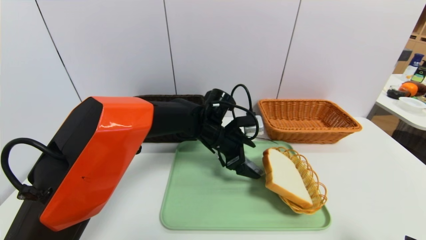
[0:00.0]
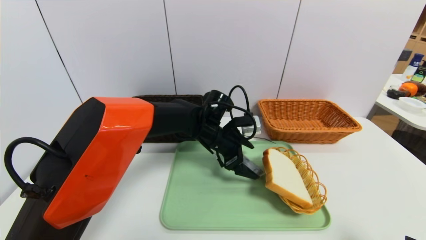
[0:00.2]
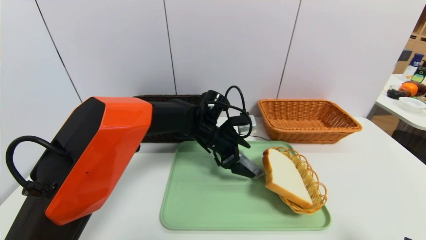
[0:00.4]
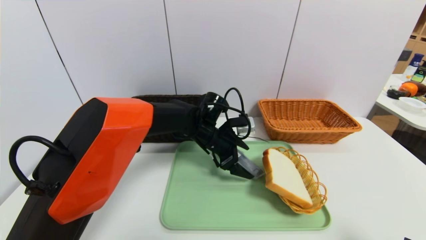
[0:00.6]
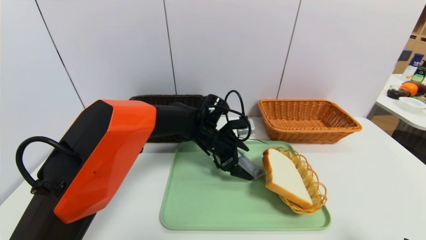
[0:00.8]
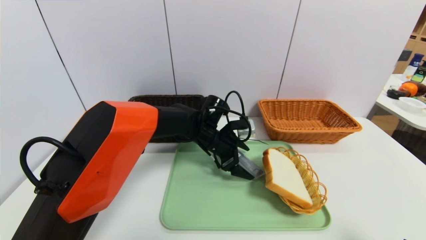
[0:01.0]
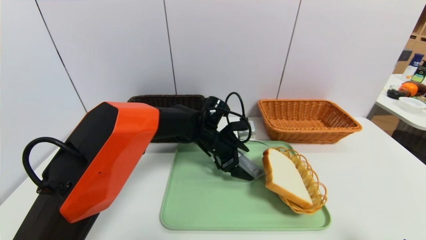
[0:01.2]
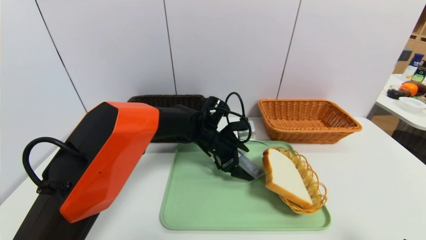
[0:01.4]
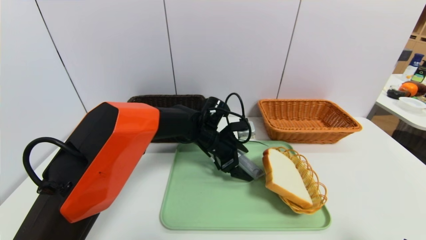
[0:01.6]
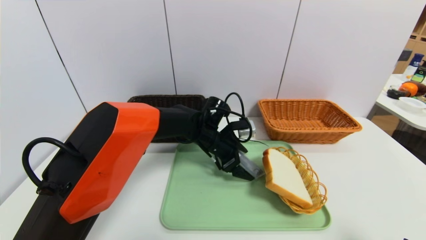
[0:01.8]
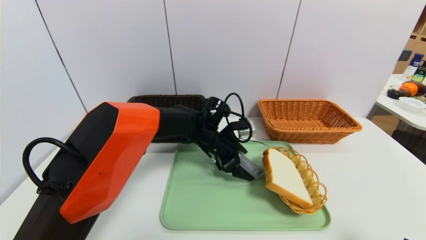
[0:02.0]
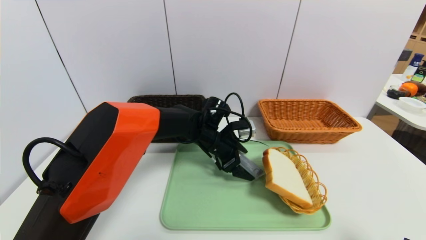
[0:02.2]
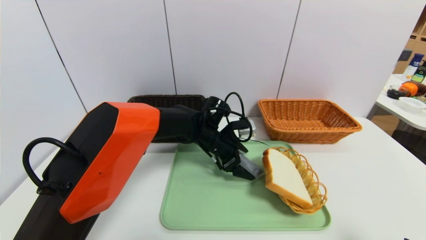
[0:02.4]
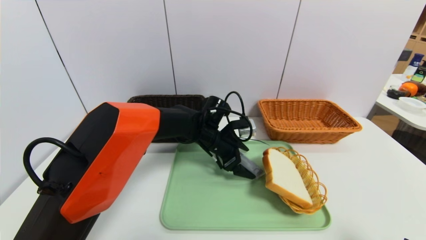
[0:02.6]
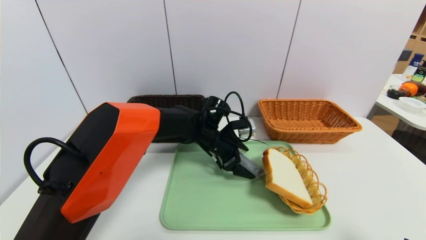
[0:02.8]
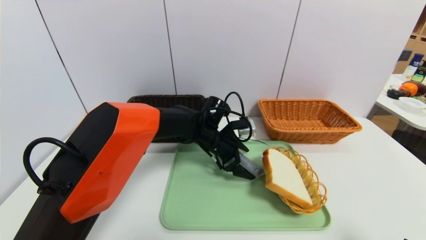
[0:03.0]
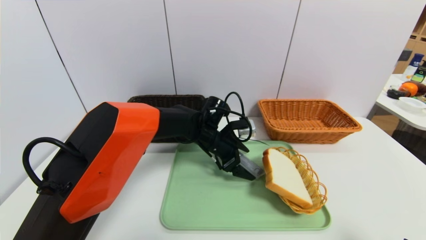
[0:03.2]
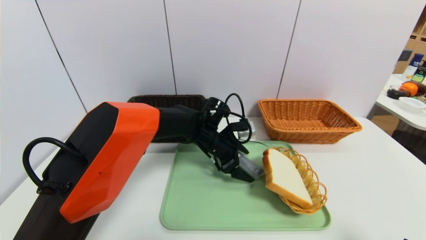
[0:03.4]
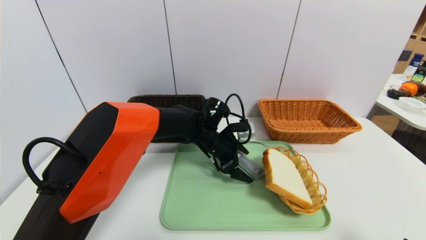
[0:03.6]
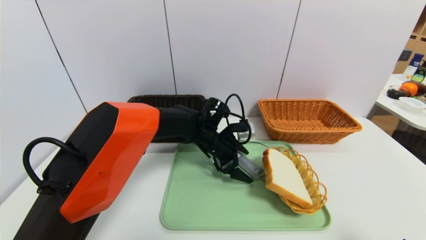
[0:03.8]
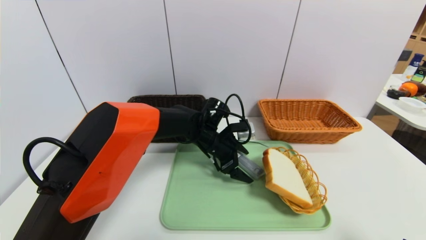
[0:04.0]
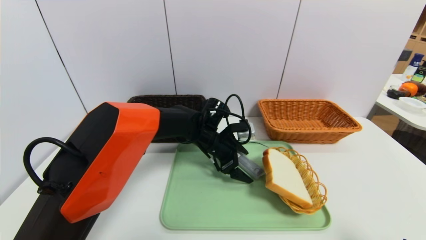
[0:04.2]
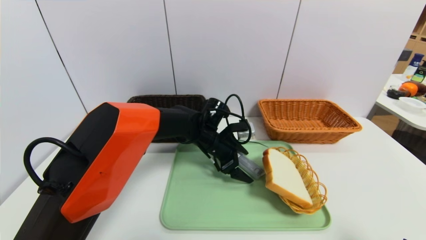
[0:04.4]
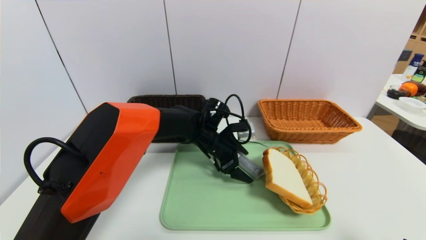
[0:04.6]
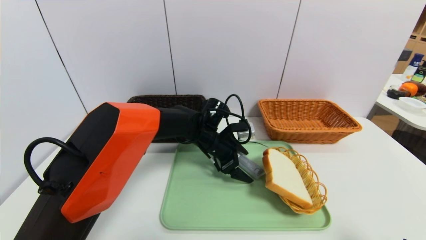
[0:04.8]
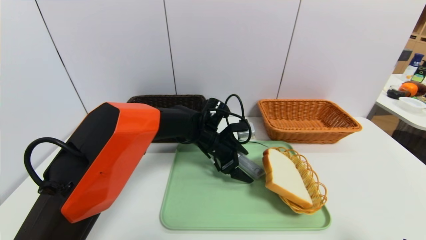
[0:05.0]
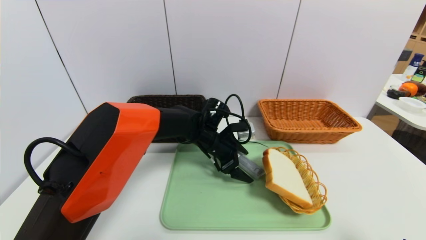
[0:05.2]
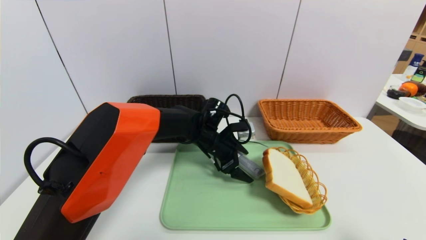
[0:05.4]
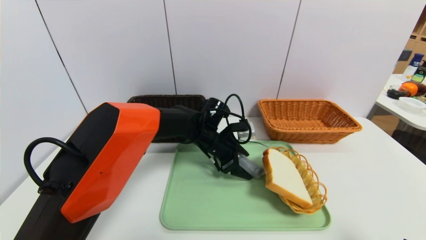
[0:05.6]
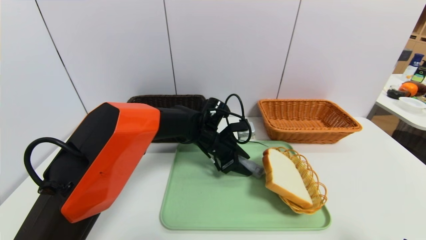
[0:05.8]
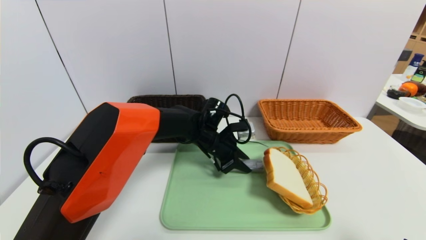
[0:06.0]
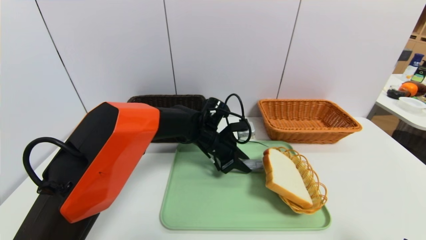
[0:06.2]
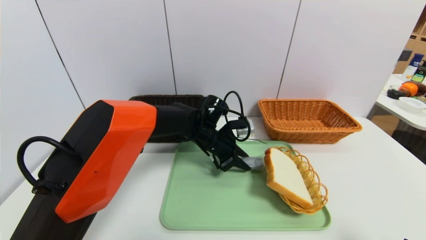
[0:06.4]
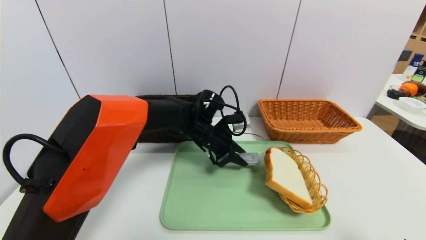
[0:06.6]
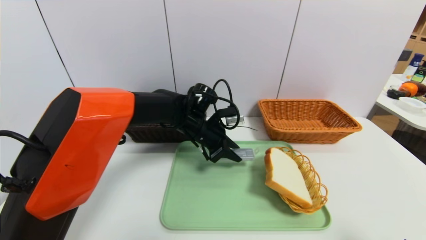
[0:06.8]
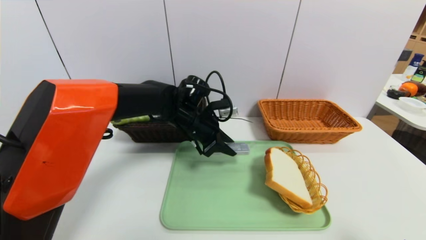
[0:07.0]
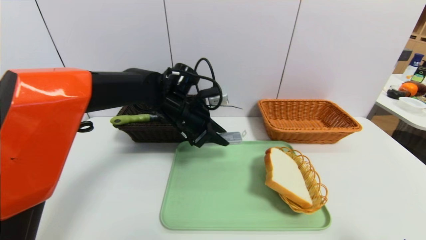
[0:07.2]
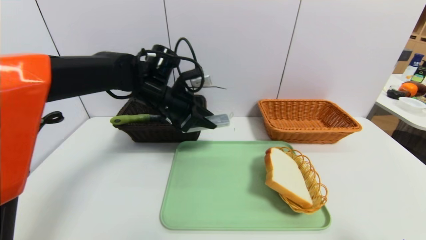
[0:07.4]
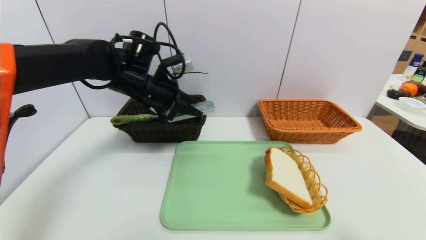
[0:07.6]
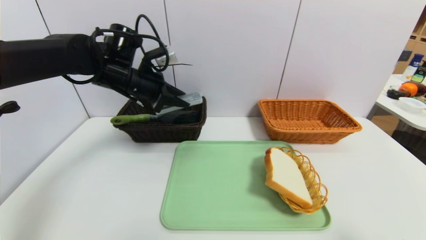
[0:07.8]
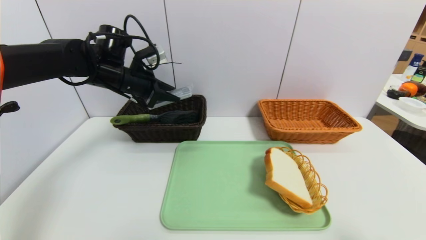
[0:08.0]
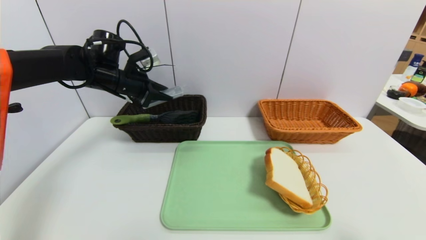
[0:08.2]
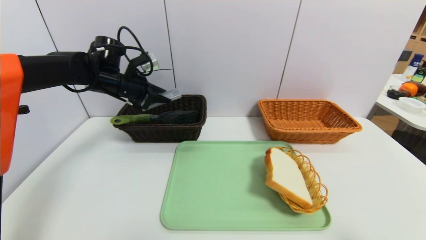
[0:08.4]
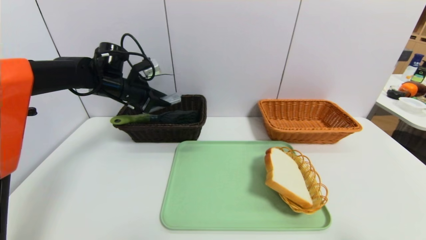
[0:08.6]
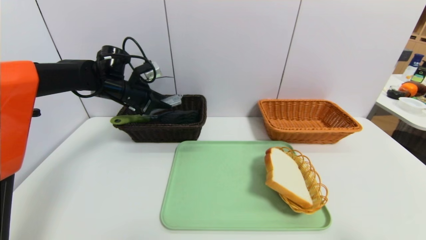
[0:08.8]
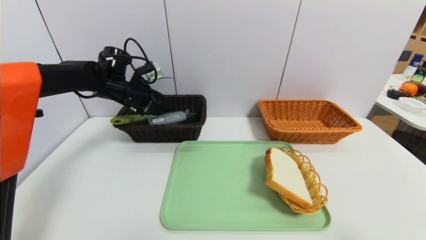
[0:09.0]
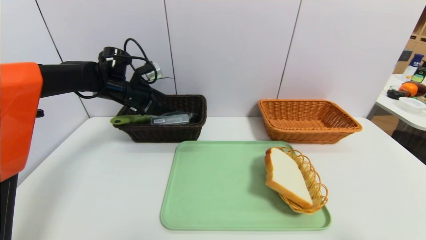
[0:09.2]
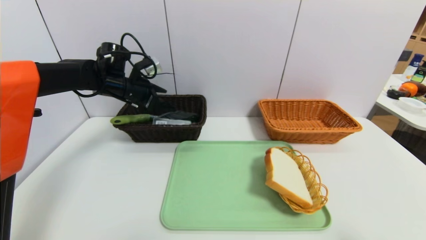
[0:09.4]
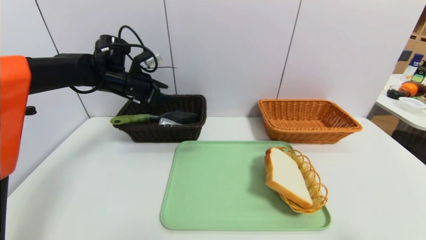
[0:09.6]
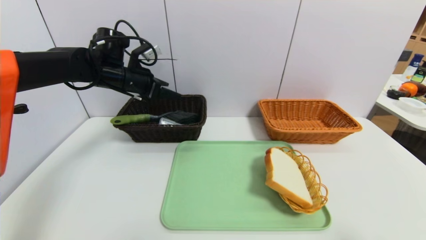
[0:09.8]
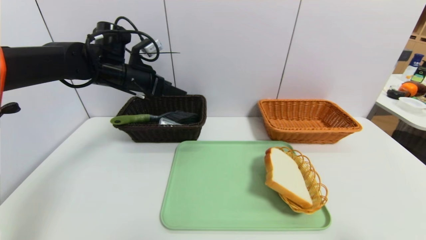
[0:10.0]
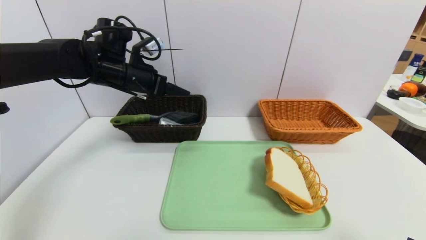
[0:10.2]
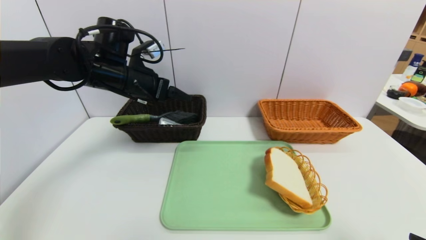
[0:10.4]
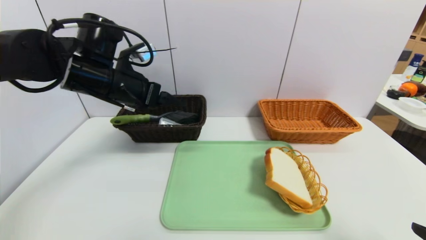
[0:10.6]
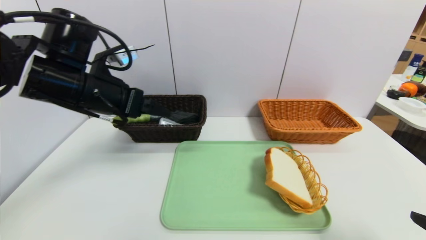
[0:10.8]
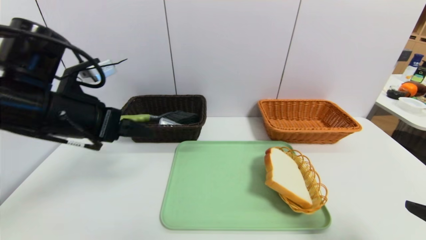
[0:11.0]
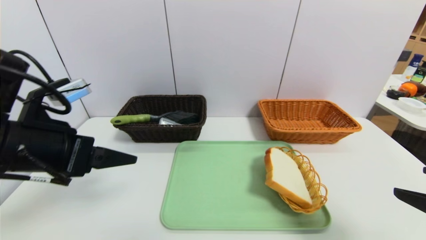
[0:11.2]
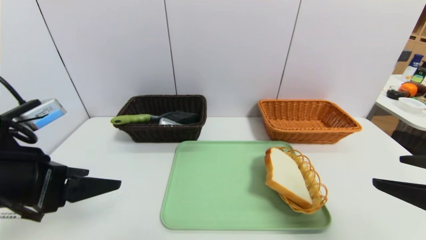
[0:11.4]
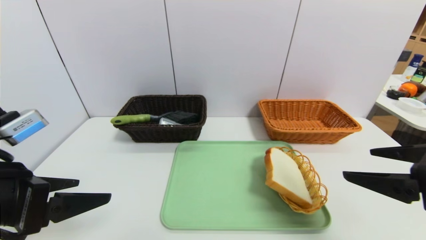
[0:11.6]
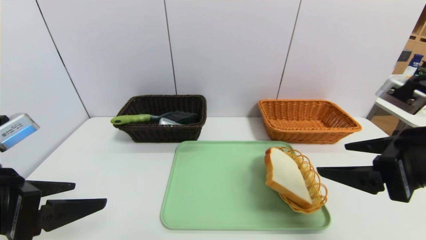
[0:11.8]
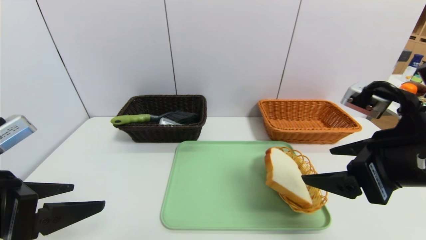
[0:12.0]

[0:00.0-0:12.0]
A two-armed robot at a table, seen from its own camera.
Task of the whole recording: place the food in the right basket with the right gripper, and place the non food items in the left basket with the left gripper.
Step, 0:00.0 to 0:09.8: Grasp the compass and put it in the left basket.
0:00.0 to 0:01.6: The grippers move only a little.
0:01.6 to 0:04.4: Neither gripper changes place.
0:04.4 to 0:06.0: The left gripper closes.
0:06.0 to 0:07.6: The left gripper is displaced upward and to the left by roughly 20 cm.
0:07.6 to 0:09.0: The left gripper is displaced to the left and forward by some 10 cm.
0:09.0 to 0:10.4: The left gripper travels backward, upward and to the right by roughly 10 cm, and opens up.
0:10.4 to 0:12.0: The right gripper is displaced forward, to the left and upward by approximately 20 cm; the left gripper is displaced backward by approximately 25 cm.

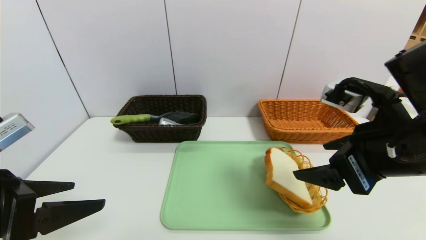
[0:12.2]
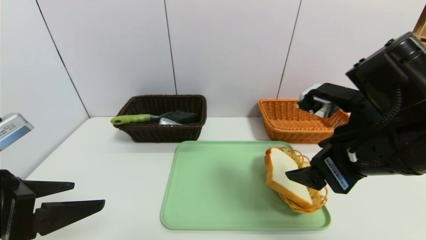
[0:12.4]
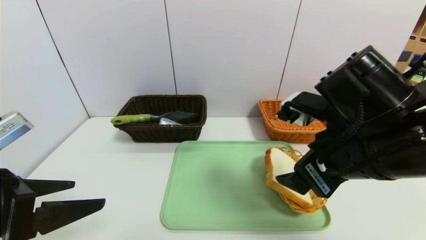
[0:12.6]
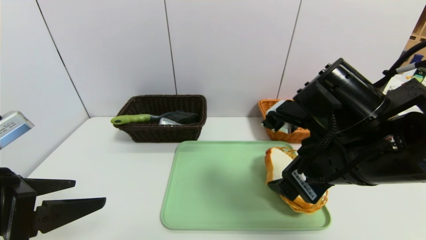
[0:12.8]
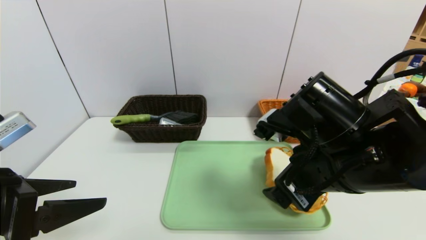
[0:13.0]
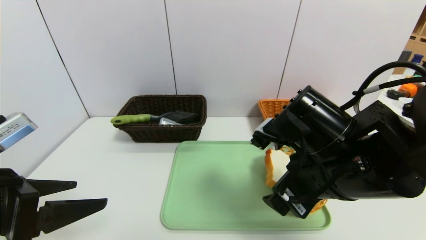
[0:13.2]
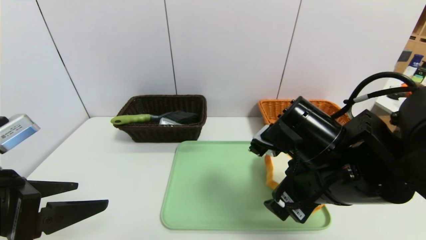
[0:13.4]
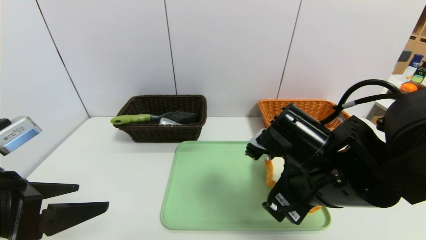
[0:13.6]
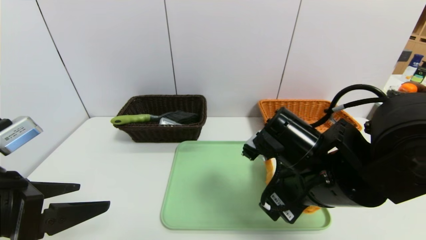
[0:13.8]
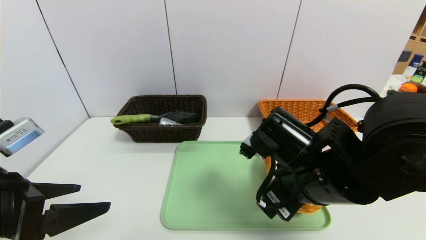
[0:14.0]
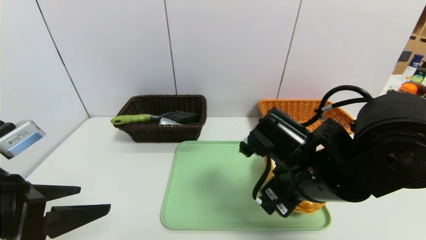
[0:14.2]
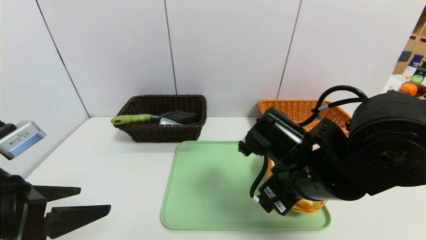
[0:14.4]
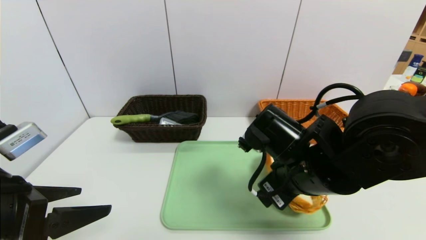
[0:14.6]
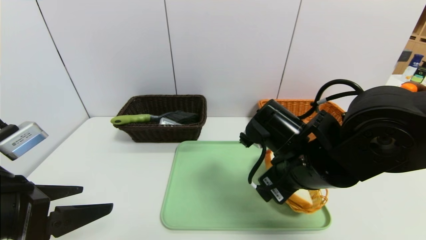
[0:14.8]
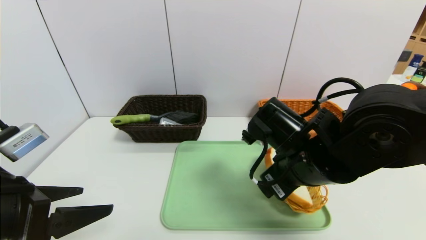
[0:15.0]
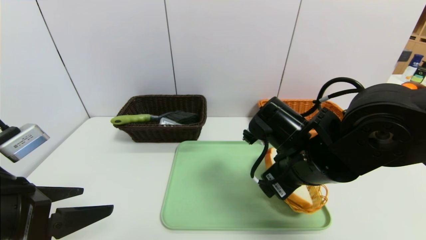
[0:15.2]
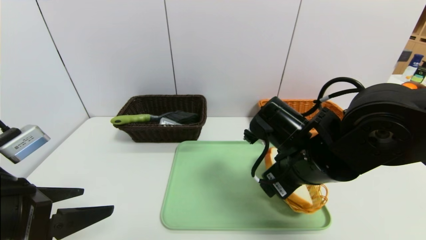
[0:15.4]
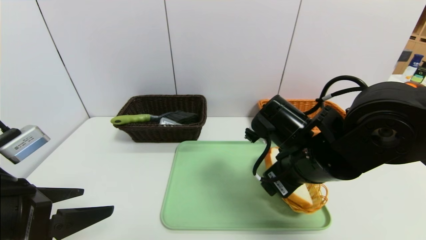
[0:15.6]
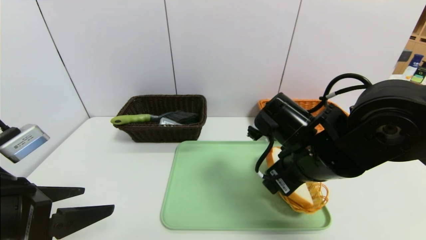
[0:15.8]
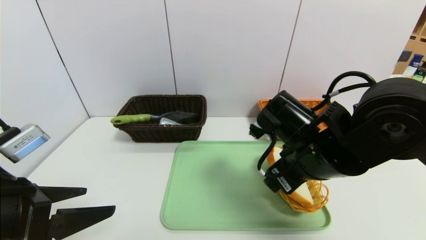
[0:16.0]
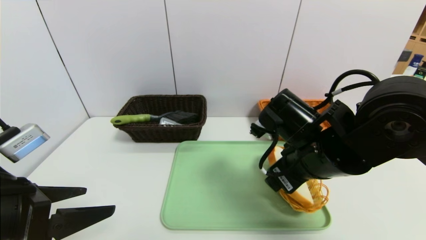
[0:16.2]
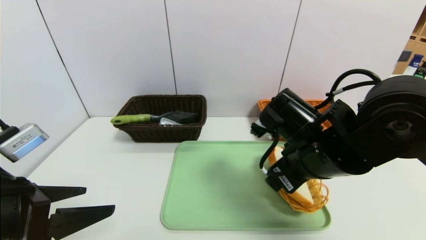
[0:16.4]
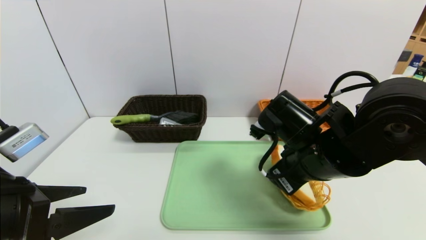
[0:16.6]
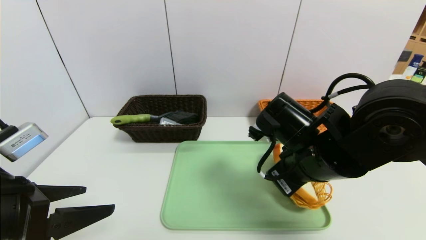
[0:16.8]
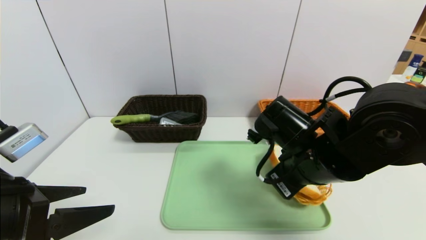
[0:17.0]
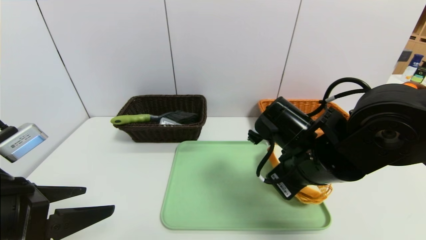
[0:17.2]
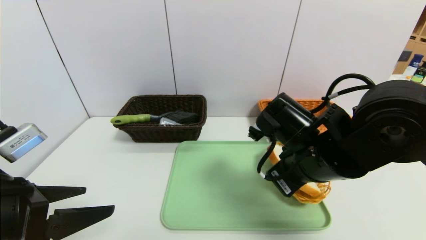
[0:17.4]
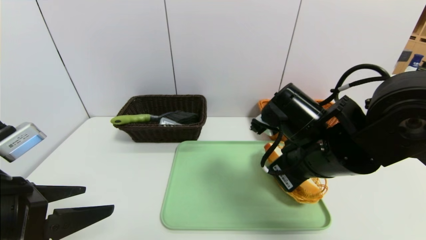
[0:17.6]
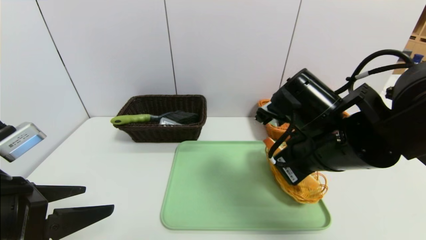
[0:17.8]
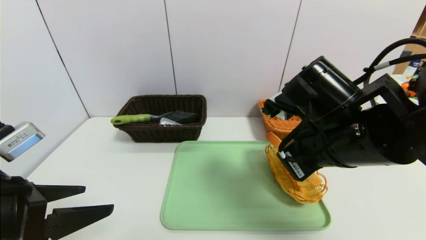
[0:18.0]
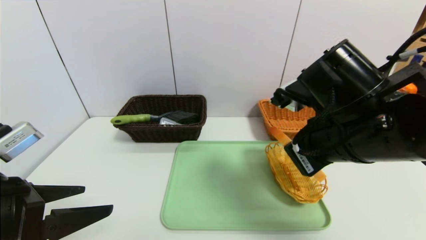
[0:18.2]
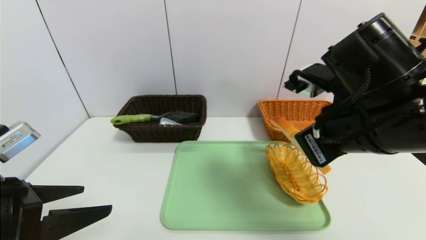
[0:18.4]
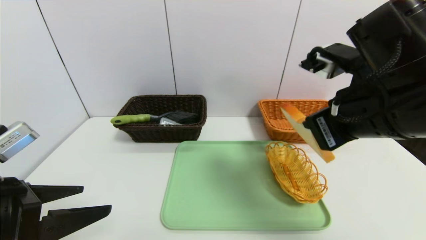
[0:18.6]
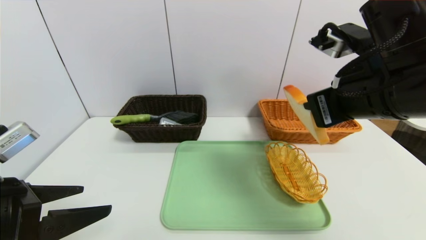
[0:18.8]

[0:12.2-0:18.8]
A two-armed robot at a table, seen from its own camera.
Task of the whole recording: place the food in the right basket with the right gripper, and place the non food items in the left basket with the left gripper.
0:12.2 to 0:13.8: The right gripper goes about 10 cm to the left and downward.
0:13.8 to 0:15.4: The grippers make only small movements.
0:15.4 to 0:17.2: The right gripper closes.
0:17.2 to 0:18.8: The right gripper moves upward and to the right, approximately 10 cm.
